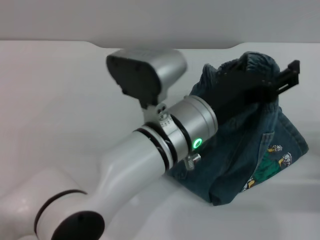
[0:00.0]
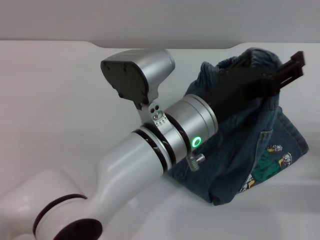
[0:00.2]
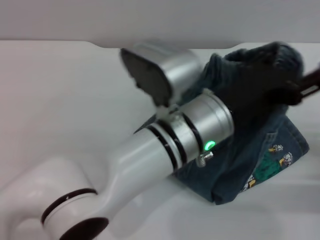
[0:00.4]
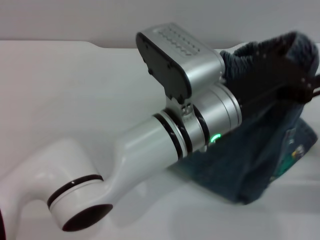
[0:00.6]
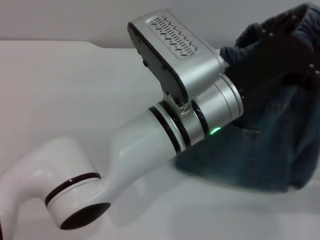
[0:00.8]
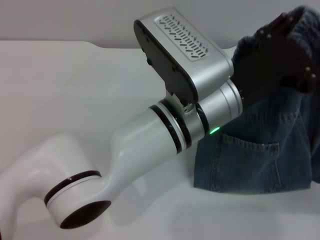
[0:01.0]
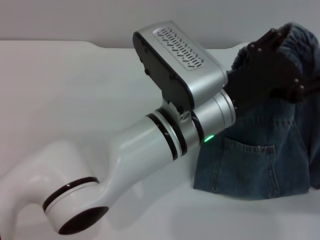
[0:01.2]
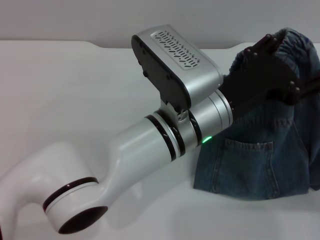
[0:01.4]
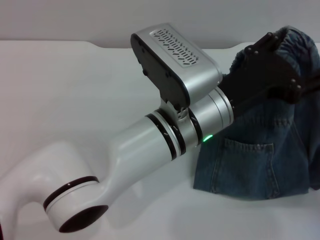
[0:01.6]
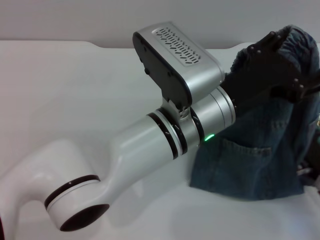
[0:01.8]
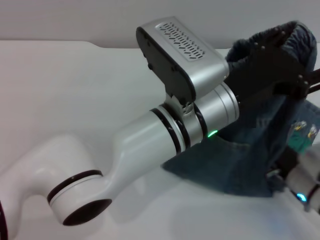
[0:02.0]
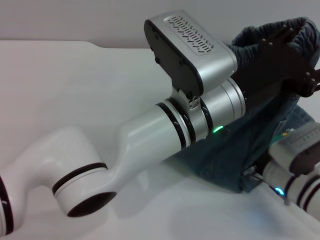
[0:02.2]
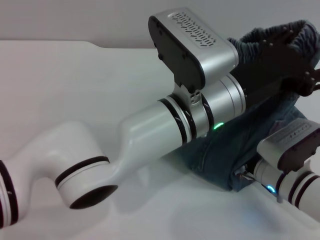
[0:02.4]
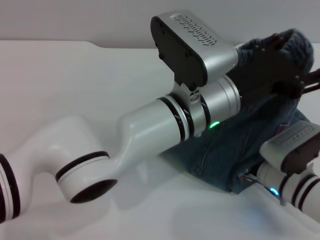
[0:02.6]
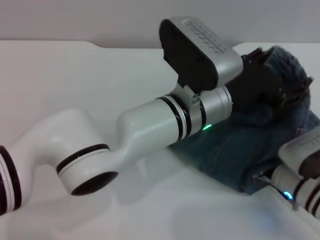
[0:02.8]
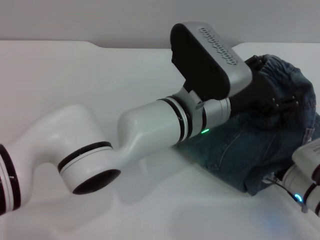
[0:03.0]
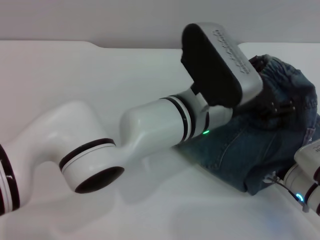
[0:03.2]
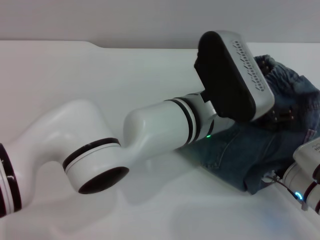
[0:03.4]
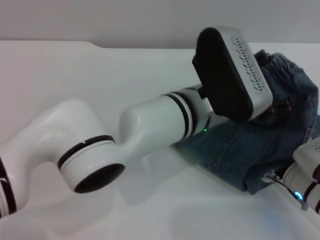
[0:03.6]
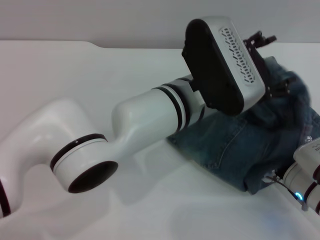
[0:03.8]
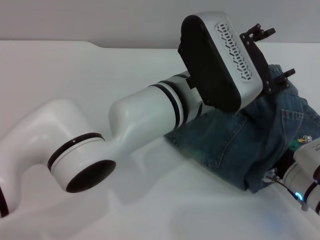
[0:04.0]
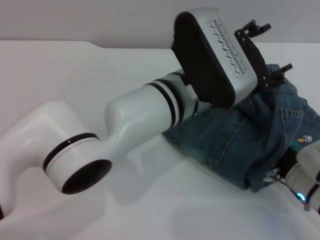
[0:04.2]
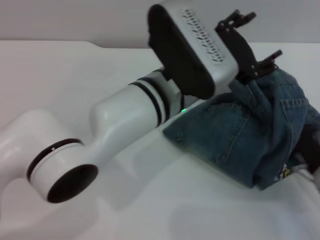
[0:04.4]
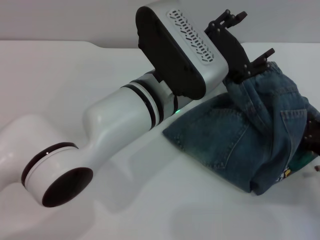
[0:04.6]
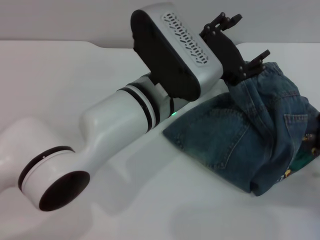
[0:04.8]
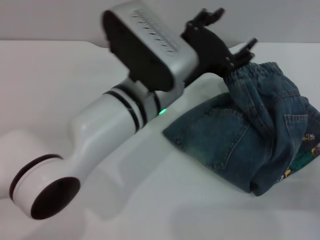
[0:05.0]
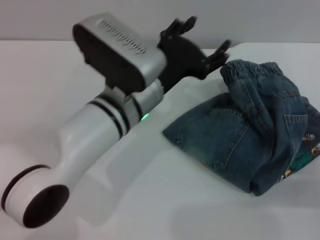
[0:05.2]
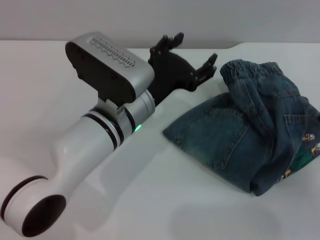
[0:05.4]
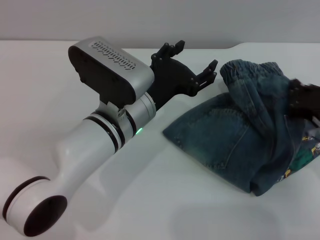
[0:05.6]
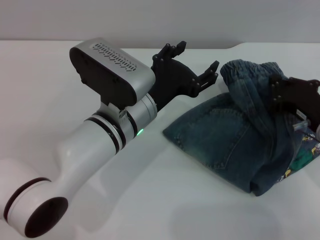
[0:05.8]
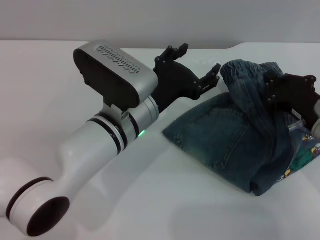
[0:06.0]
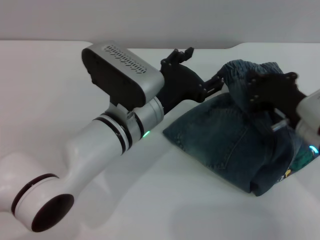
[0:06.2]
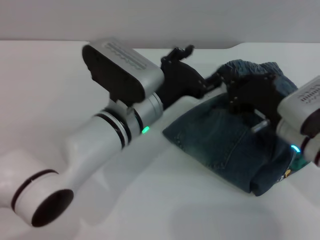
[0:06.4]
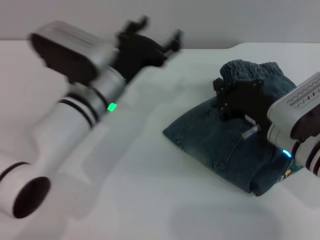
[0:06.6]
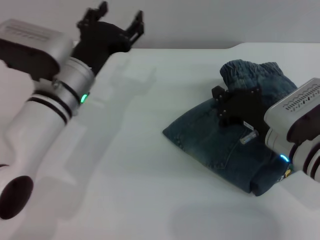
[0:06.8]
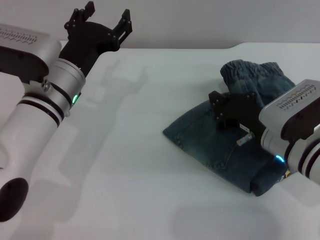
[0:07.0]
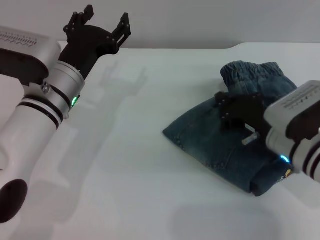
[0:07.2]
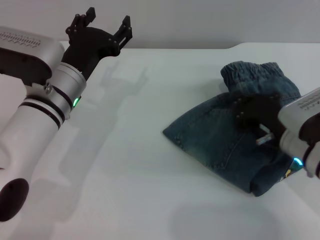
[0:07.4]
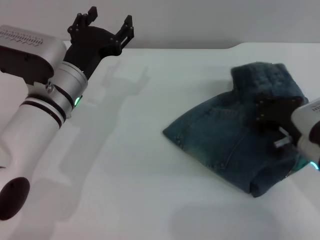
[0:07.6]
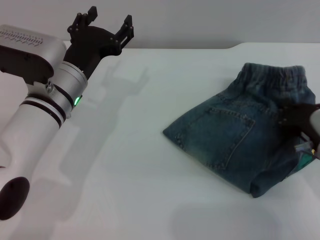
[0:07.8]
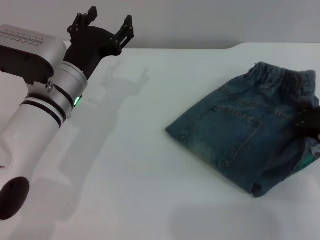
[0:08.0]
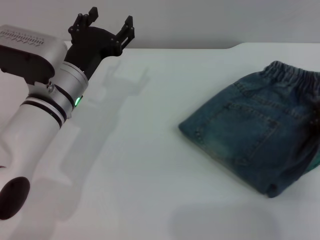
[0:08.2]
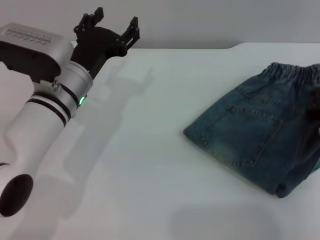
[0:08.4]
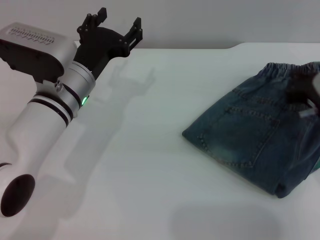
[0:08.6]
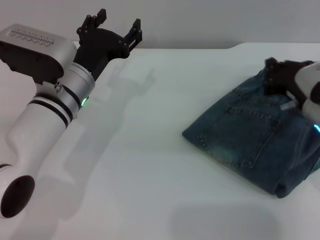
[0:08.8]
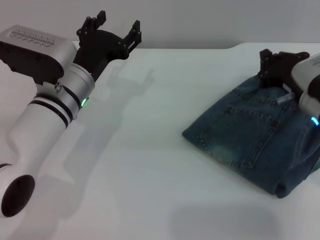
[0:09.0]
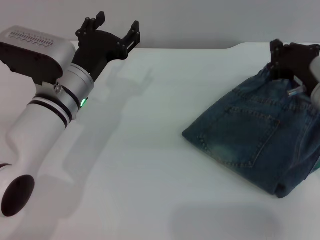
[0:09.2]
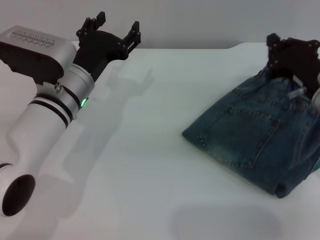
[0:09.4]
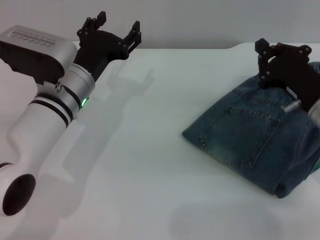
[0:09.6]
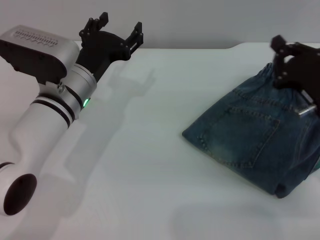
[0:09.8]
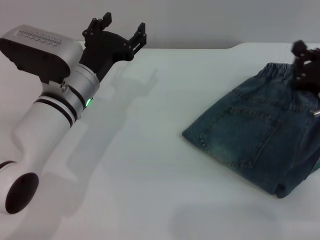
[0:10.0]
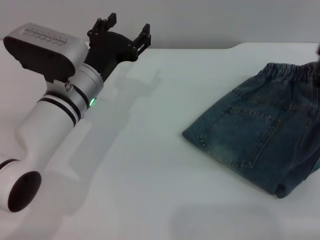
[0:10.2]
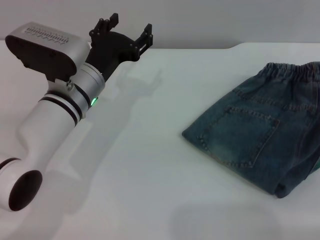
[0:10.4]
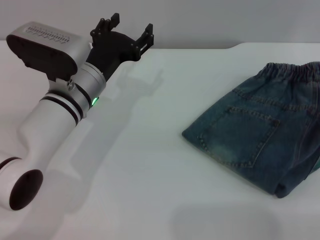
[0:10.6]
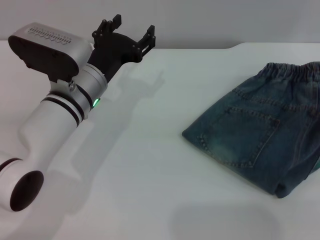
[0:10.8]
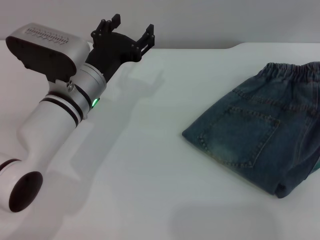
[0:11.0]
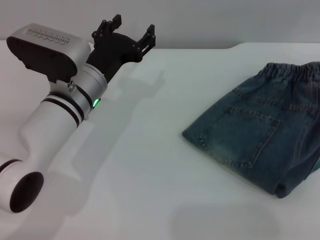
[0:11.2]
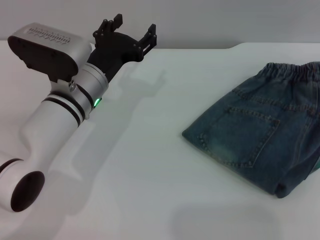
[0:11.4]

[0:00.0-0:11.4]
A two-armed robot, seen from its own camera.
Step, 0:00.0 to 0:05.4: Fold the pants from left to right with the left gripper.
0:01.4 to 0:02.8: The right gripper goes about 10 cm to the left.
0:04.2 to 0:05.6: The left gripper goes roughly 5 cm to the left. The right gripper is displaced upward by approximately 5 cm.
0:05.6 to 0:07.2: Both grippers move to the left, roughly 10 cm.
0:07.2 to 0:08.6: The right gripper goes approximately 5 cm to the right.
0:10.0 to 0:11.4: The right gripper moves upward and to the right, about 20 cm.

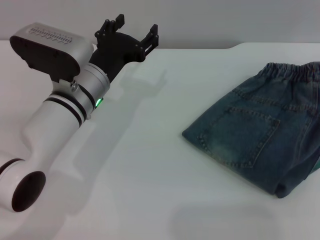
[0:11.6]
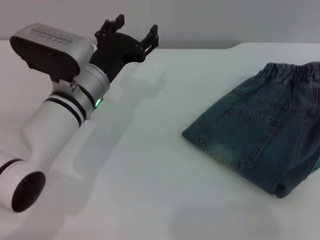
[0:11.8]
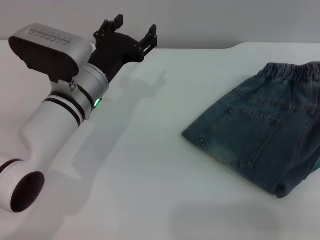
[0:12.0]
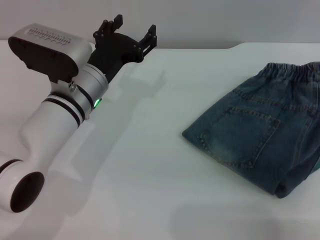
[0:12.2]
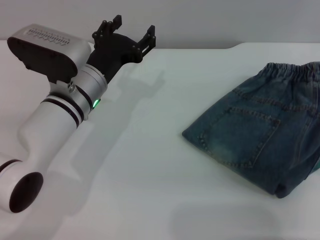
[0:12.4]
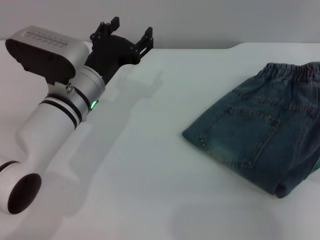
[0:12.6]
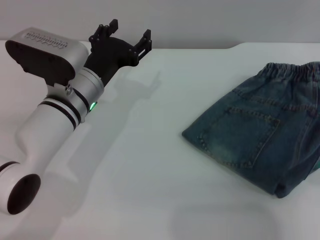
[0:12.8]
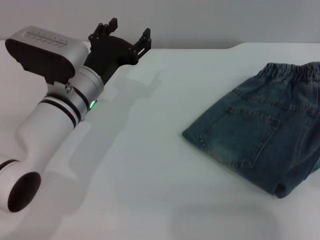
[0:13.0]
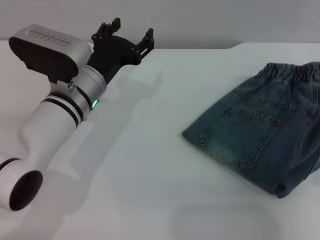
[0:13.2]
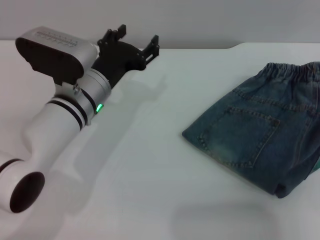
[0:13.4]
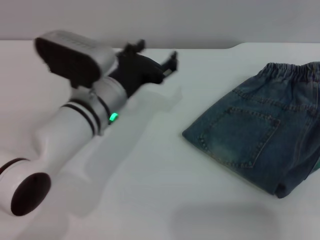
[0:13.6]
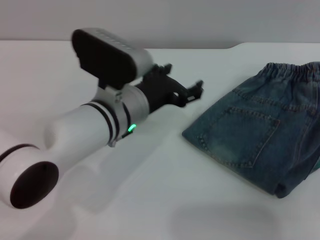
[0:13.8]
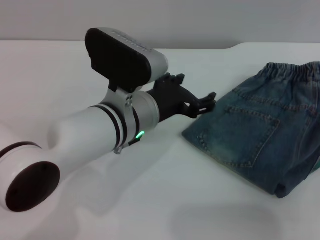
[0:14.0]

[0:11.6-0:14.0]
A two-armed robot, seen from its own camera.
0:11.6 to 0:12.8: The right gripper moves to the left, downward and backward, roughly 25 cm.
0:12.8 to 0:14.0: The right gripper ends up about 5 cm from where it was, and opens up, while the left gripper heads to the right and backward, covering roughly 10 cm.

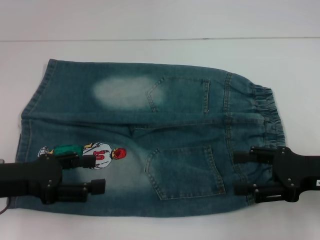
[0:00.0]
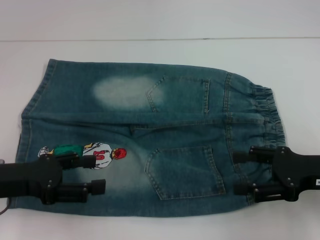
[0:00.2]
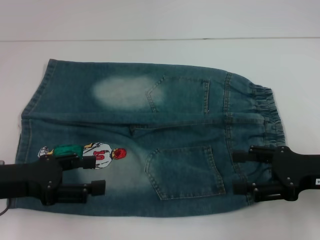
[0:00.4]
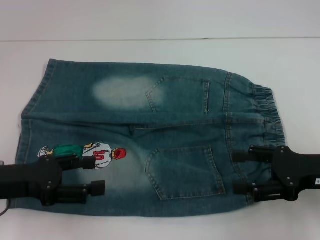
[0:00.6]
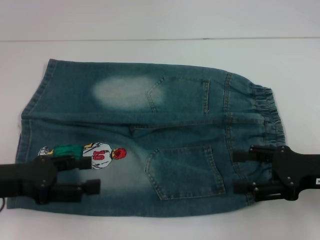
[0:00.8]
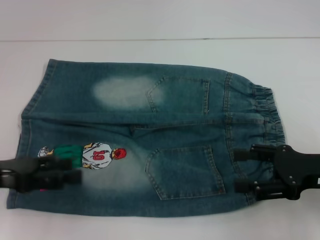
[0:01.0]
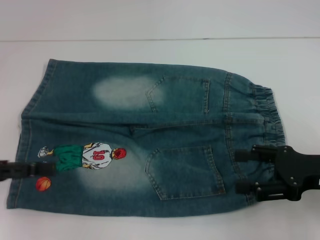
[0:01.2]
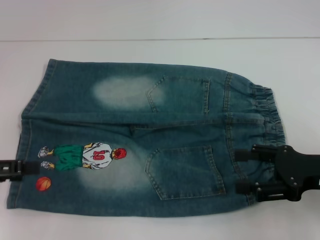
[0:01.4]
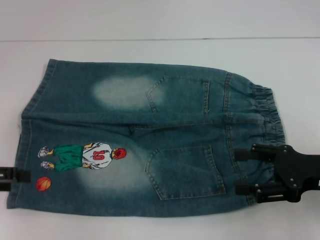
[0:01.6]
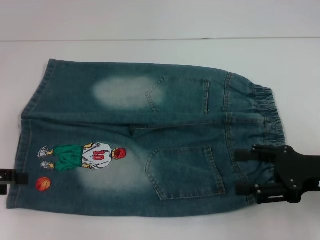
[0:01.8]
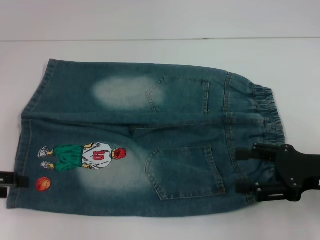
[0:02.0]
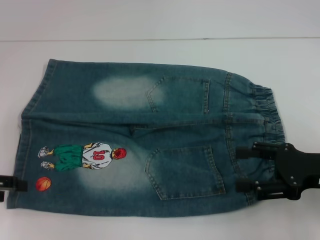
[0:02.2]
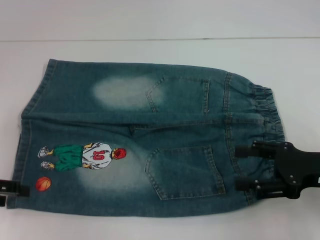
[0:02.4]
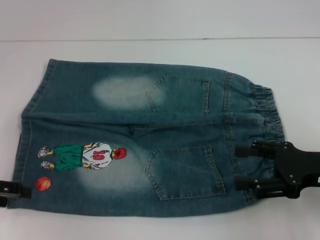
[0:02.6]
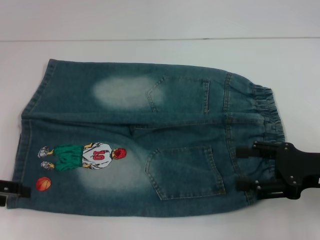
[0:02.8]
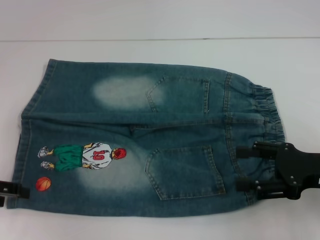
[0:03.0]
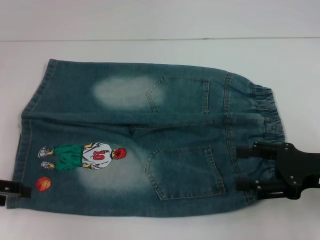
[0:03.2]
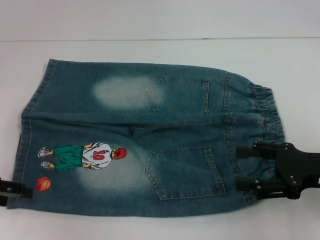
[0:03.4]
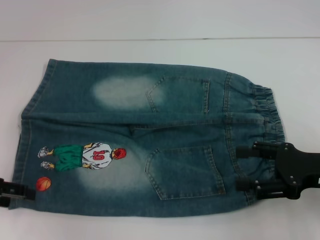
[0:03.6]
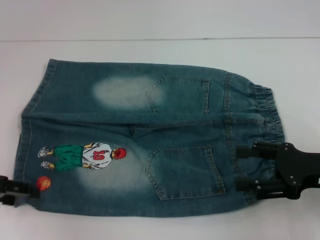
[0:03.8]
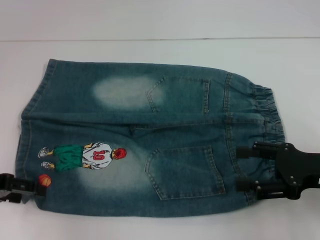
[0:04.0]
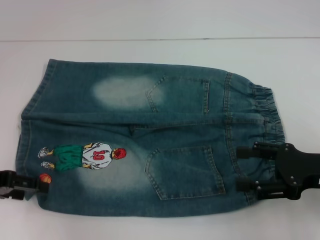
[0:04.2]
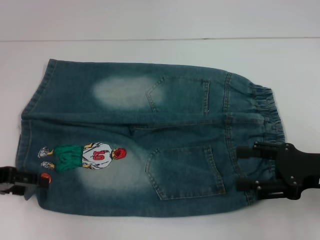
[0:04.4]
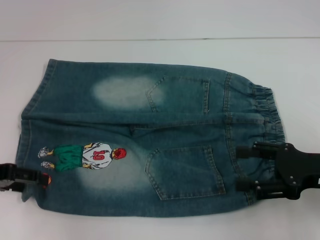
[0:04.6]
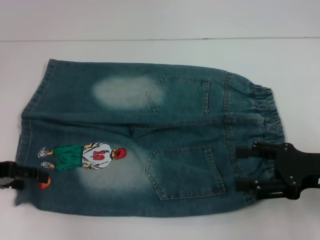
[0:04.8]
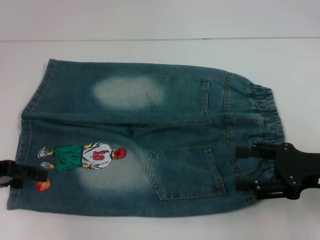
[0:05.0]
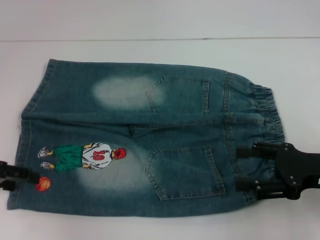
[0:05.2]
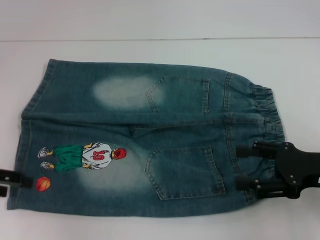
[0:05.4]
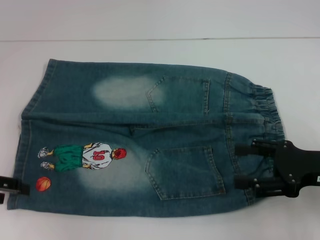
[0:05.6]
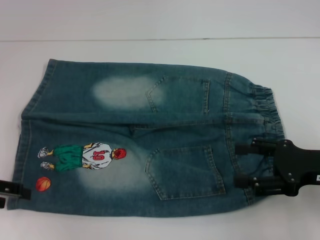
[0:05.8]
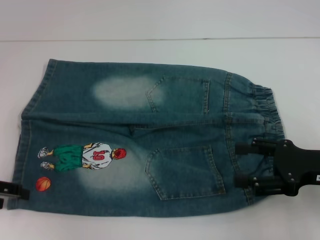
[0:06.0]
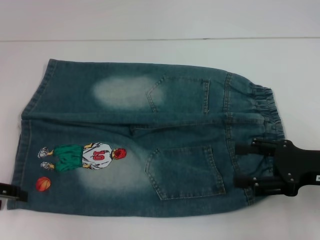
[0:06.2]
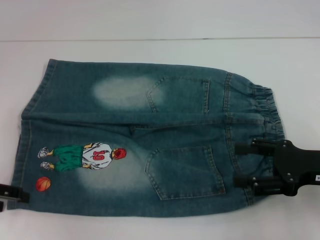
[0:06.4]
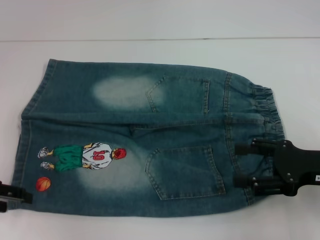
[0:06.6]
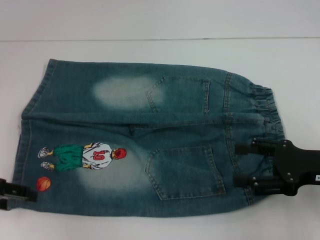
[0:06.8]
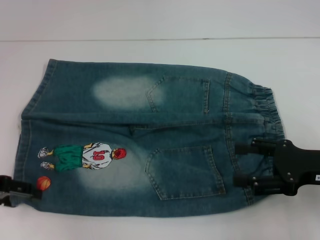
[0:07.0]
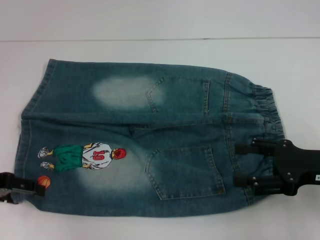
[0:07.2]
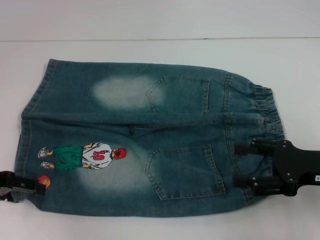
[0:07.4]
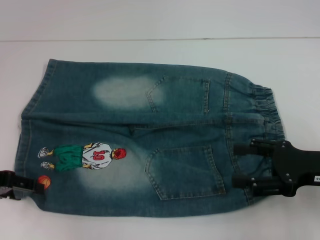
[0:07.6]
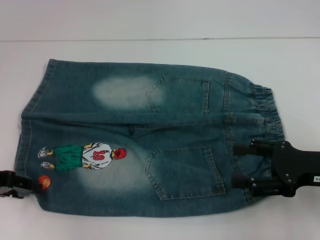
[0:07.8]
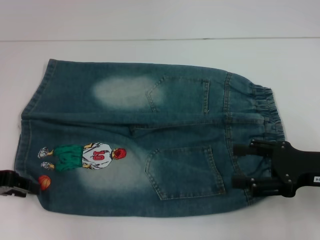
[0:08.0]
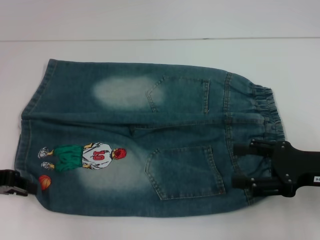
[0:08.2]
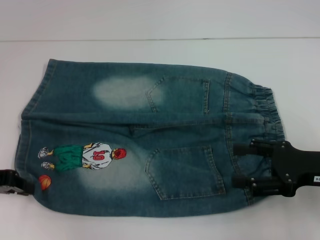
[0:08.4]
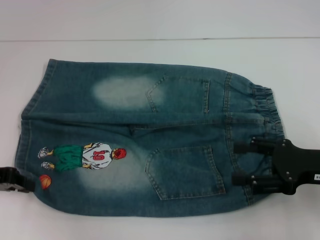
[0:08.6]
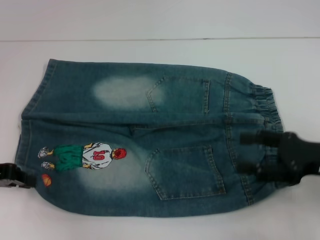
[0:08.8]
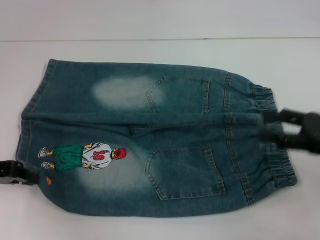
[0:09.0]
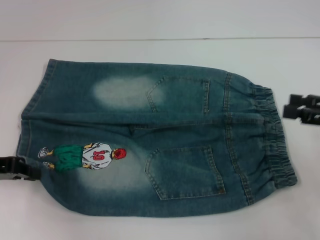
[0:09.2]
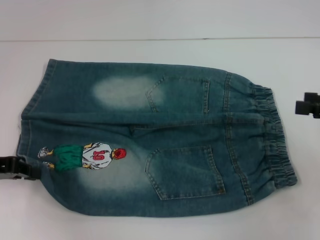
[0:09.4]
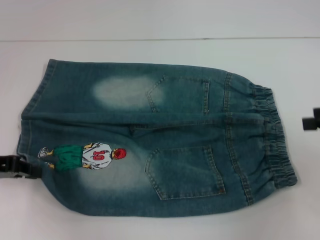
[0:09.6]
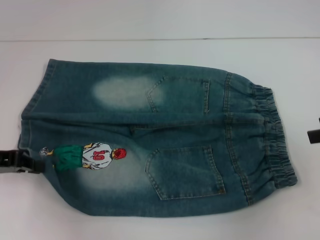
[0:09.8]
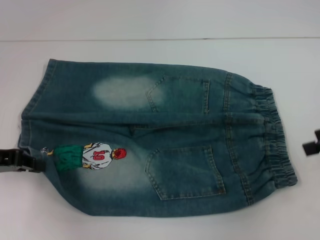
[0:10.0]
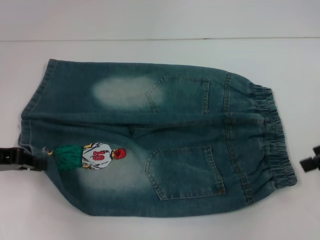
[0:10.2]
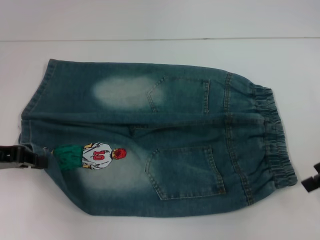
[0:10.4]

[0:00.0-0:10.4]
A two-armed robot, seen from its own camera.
Step, 0:00.0 to 0:08.4: Grab the lower left pant leg with your left hand.
0:00.0 to 0:01.4: The left gripper heads to the left, covering roughly 5 cm.
0:03.0 to 0:07.4: The grippers stay close to where they were, moving slightly.
0:07.4 to 0:09.0: The left gripper closes.
0:09.0 to 0:10.4: The right gripper heads upward, covering roughly 5 cm.
